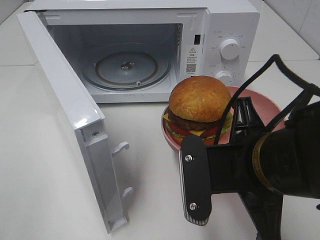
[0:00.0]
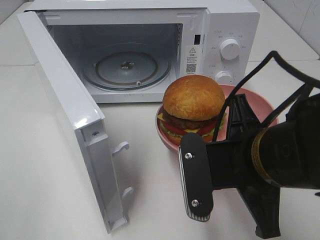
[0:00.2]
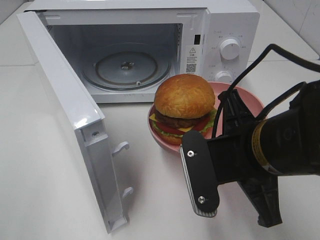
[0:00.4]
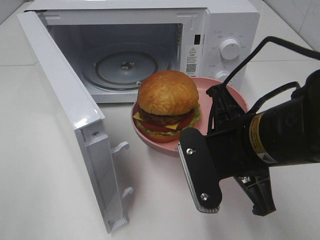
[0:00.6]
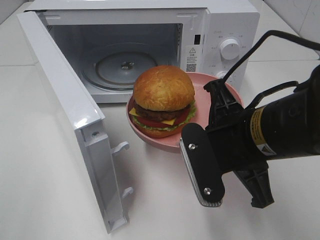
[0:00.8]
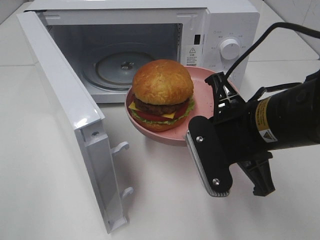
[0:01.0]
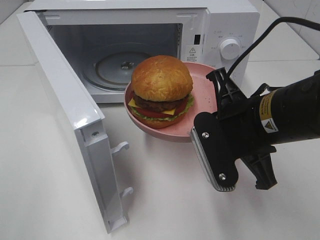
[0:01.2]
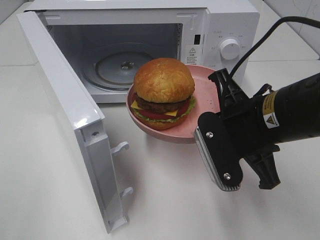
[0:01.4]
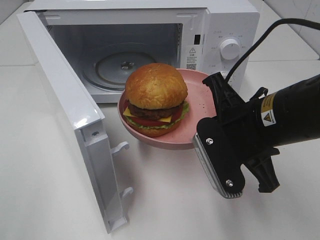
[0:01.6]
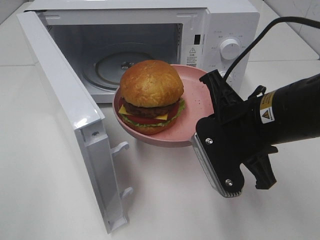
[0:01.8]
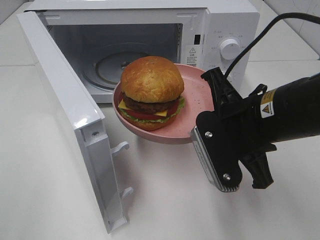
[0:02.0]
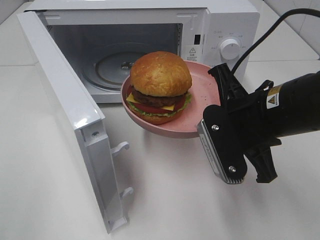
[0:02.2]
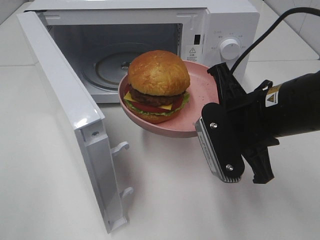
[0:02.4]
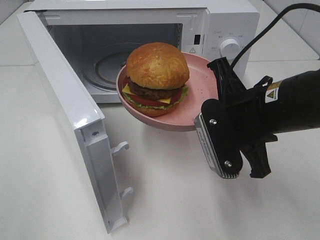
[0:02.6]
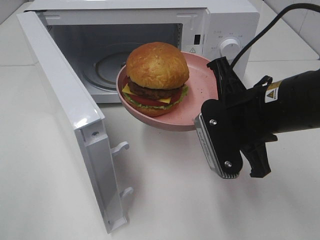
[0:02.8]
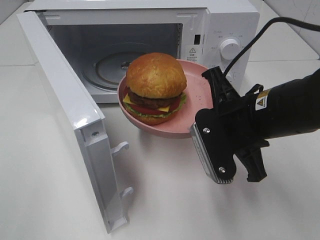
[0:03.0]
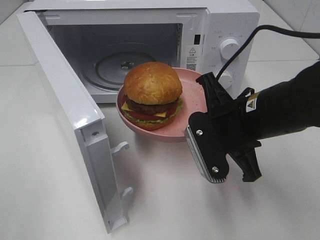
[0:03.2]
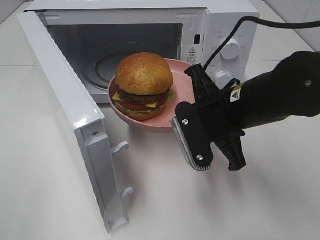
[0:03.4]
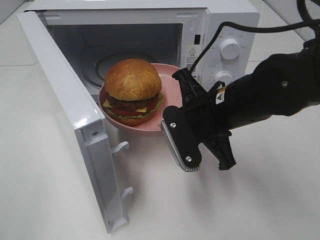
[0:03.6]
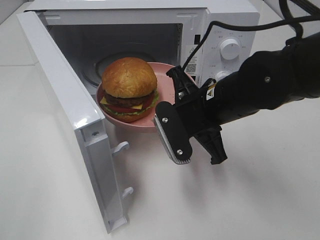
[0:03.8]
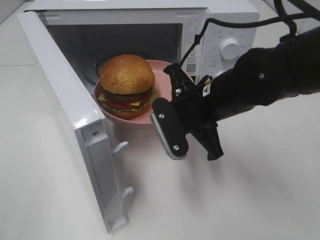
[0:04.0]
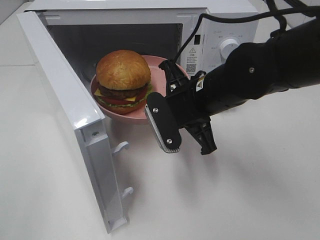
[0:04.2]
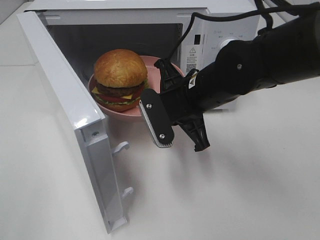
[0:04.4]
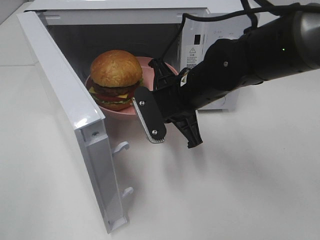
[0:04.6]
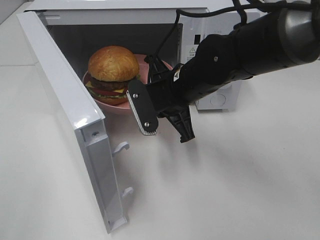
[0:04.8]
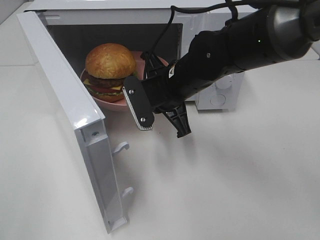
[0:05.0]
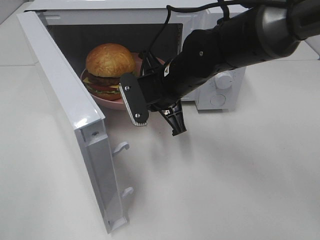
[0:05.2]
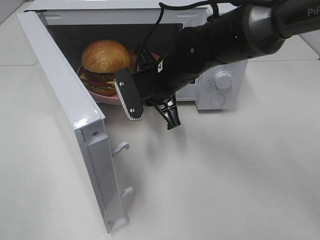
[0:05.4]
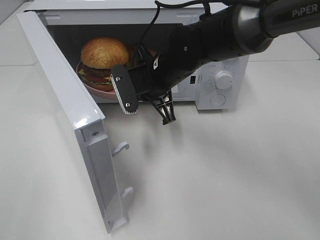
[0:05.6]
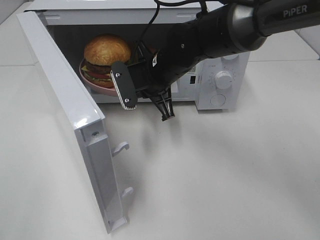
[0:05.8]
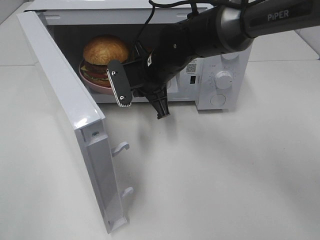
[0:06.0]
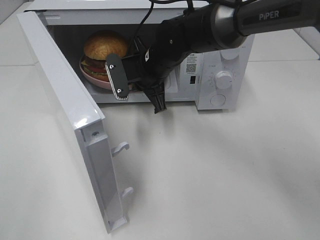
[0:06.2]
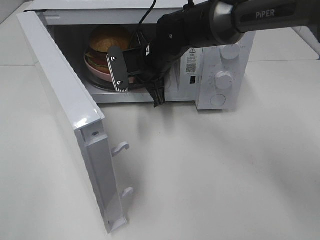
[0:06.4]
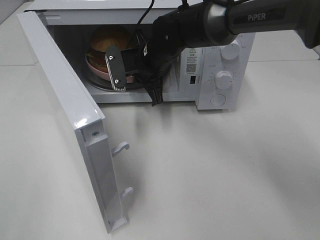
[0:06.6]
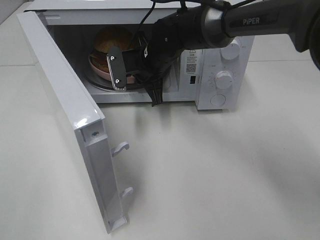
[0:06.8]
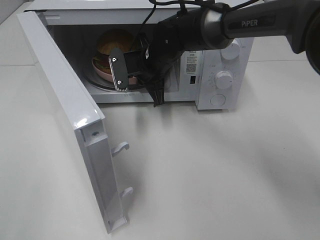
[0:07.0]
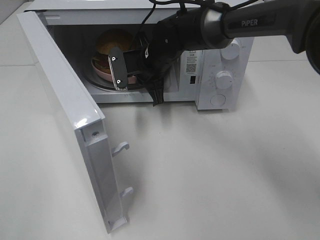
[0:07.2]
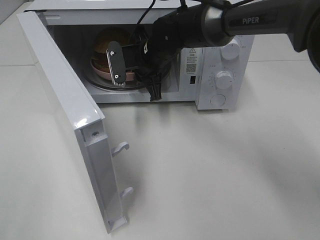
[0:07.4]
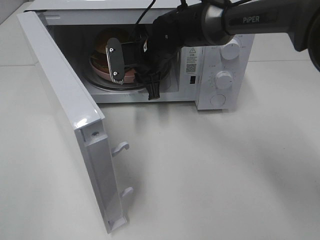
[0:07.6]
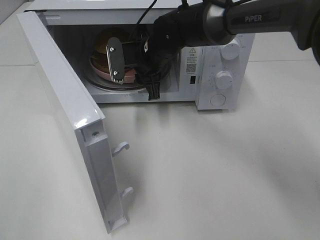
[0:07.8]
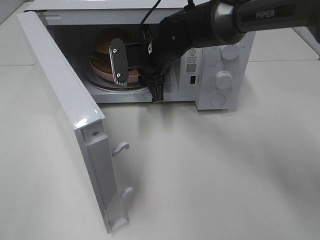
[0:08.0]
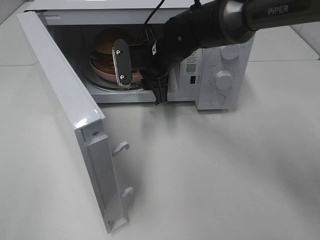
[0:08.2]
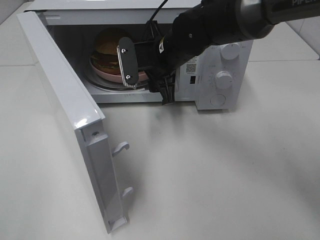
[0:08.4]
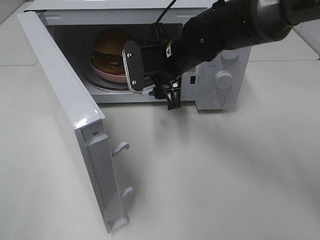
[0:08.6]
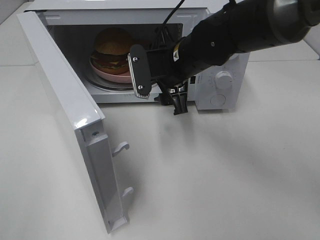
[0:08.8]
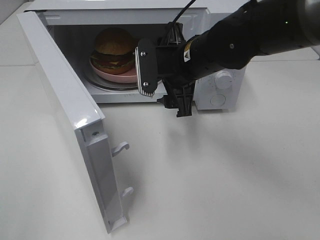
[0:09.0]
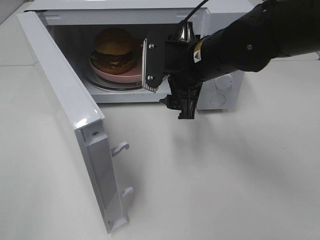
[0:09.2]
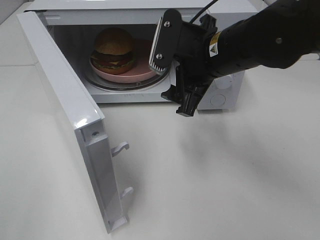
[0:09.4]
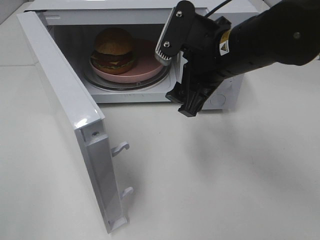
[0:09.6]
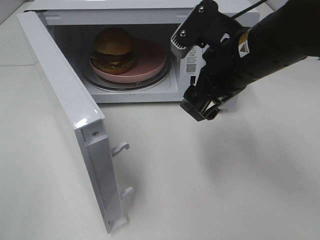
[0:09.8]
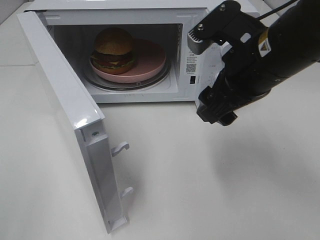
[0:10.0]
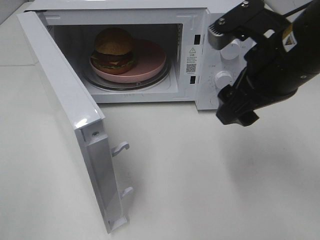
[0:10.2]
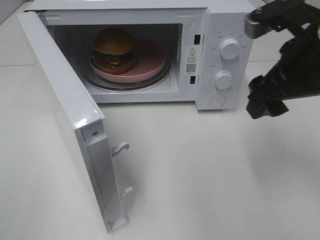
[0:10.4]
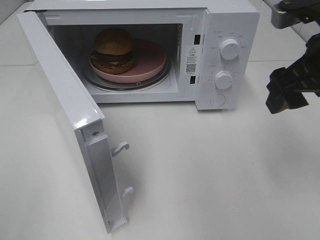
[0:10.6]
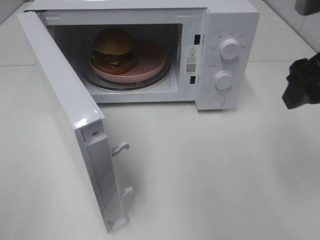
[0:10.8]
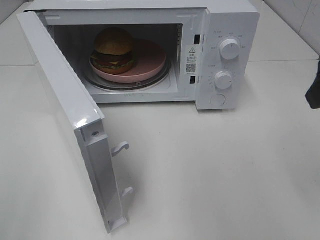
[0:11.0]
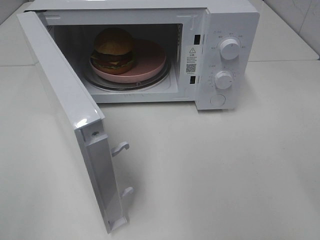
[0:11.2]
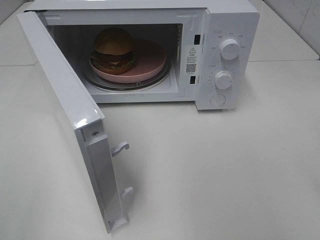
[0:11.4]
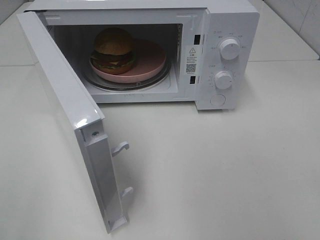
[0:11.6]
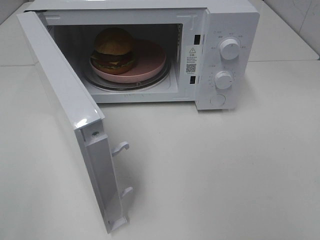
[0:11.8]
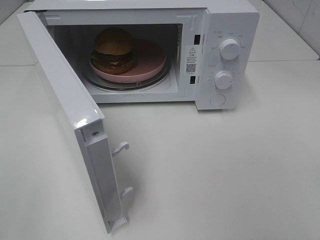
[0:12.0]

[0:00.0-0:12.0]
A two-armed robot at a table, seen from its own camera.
Task of the whole recording: Heat the burger.
Step, 0:00.0 to 0:07.4: Right hand: place the plate in the microwave.
0:00.0 to 0:01.6: The right gripper is displaced forward by some 5 cm.
0:01.6 to 0:03.0: The grippers move only a little.
0:03.0 to 0:04.4: The right gripper travels forward and to the left by some 10 cm.
0:04.4 to 0:06.0: The right gripper travels forward and to the left by some 10 cm.
0:06.0 to 0:07.6: The right gripper opens its fingers.
0:07.6 to 0:09.0: The right gripper goes about 10 cm backward and to the right, and opens.
0:09.0 to 0:10.4: The right gripper moves to the right, backward and upward, some 20 cm.
0:10.4 to 0:12.0: The right gripper shifts roughly 25 cm backward and to the right.

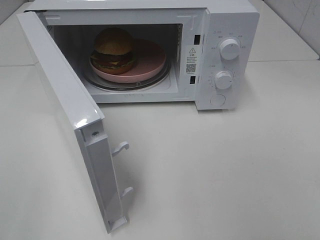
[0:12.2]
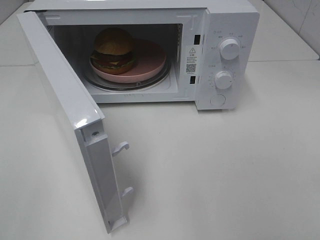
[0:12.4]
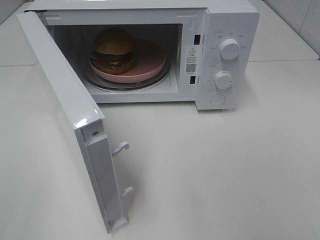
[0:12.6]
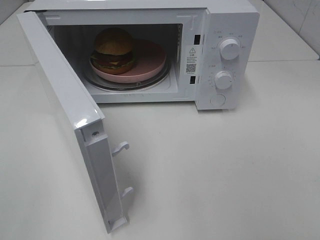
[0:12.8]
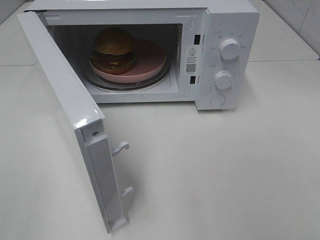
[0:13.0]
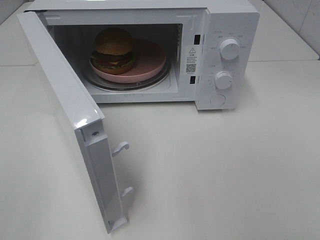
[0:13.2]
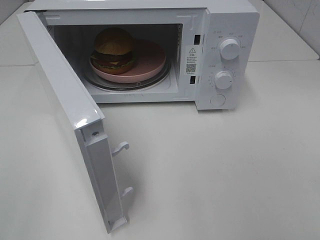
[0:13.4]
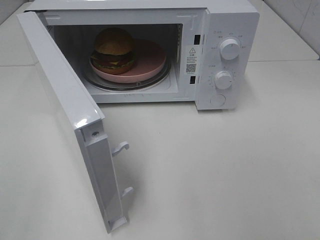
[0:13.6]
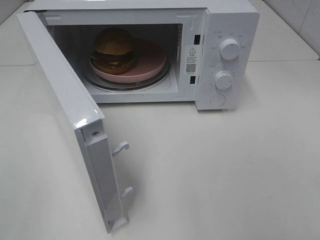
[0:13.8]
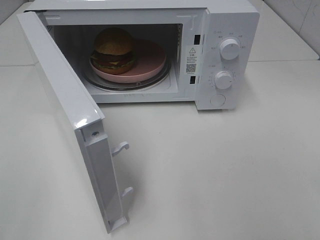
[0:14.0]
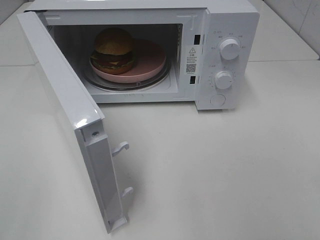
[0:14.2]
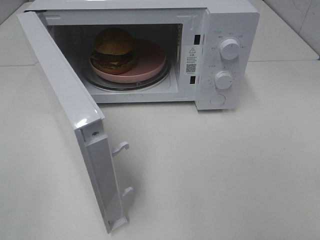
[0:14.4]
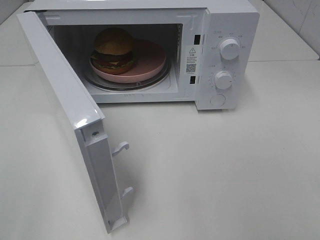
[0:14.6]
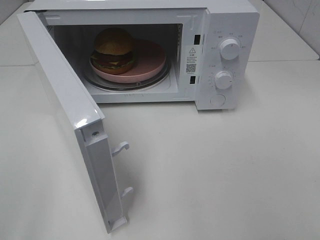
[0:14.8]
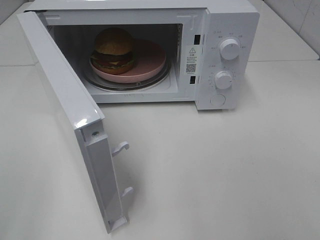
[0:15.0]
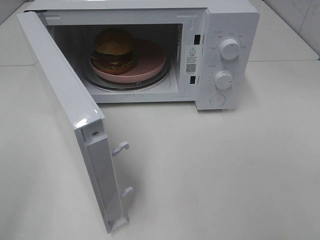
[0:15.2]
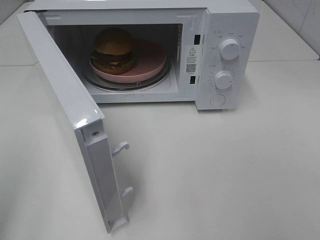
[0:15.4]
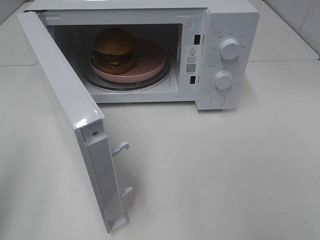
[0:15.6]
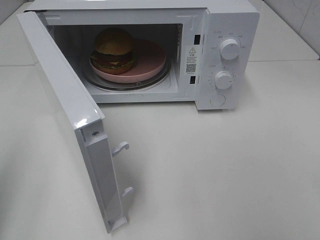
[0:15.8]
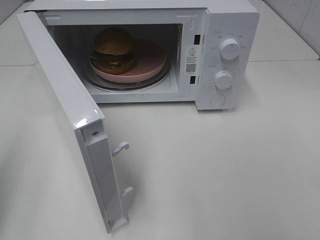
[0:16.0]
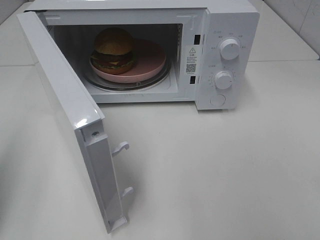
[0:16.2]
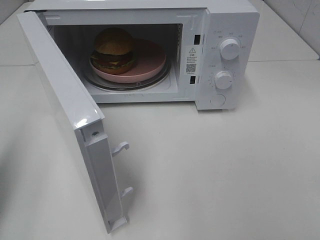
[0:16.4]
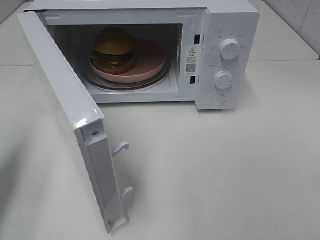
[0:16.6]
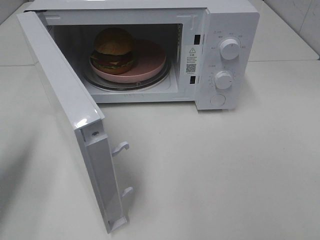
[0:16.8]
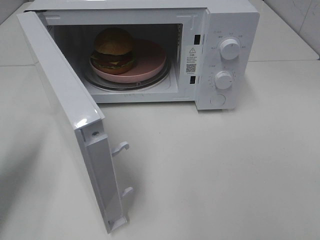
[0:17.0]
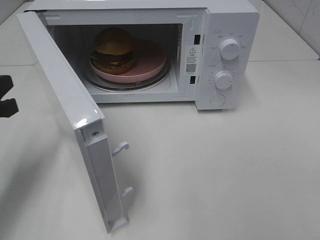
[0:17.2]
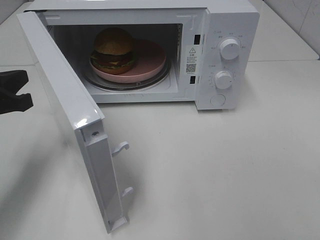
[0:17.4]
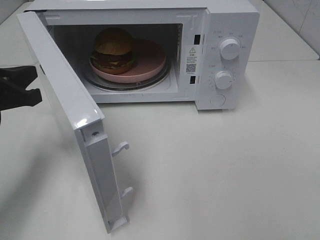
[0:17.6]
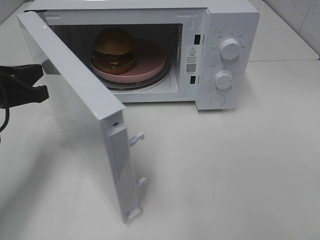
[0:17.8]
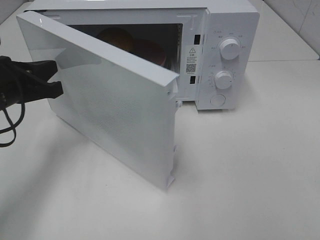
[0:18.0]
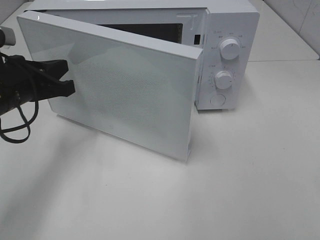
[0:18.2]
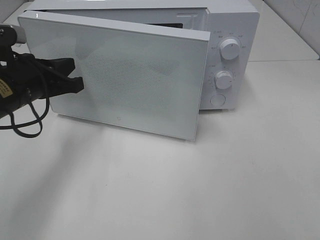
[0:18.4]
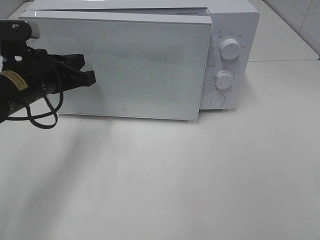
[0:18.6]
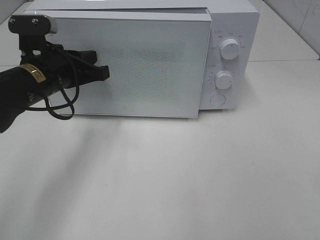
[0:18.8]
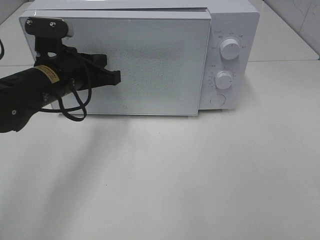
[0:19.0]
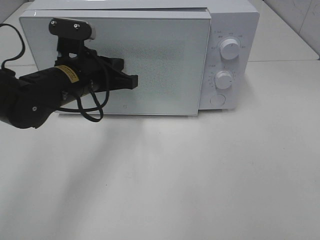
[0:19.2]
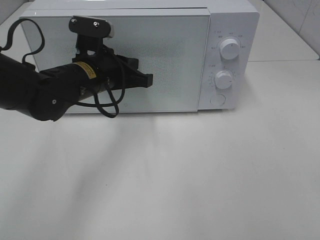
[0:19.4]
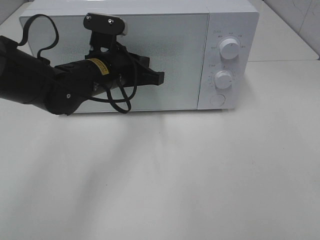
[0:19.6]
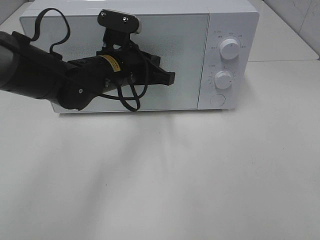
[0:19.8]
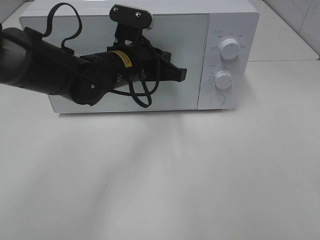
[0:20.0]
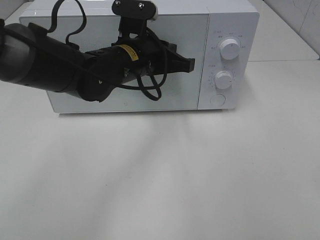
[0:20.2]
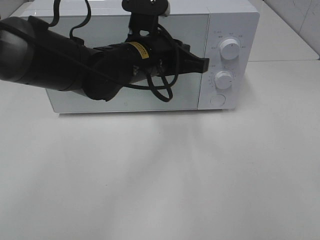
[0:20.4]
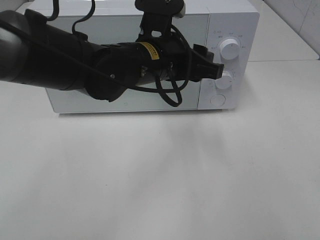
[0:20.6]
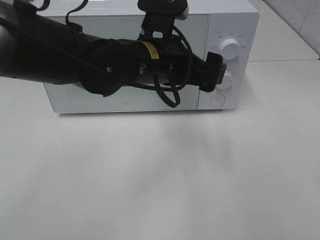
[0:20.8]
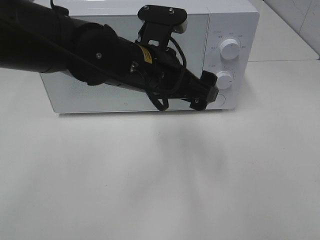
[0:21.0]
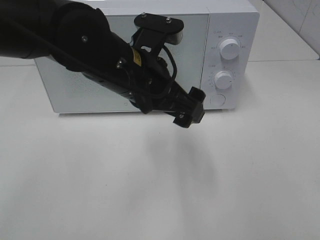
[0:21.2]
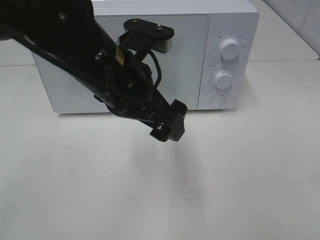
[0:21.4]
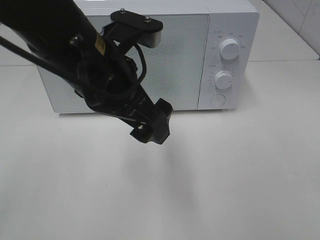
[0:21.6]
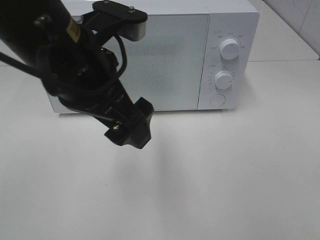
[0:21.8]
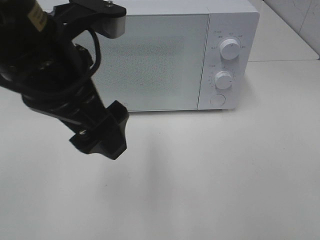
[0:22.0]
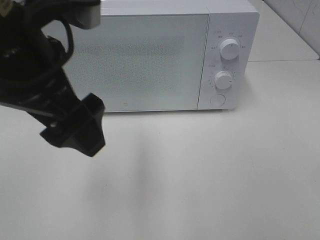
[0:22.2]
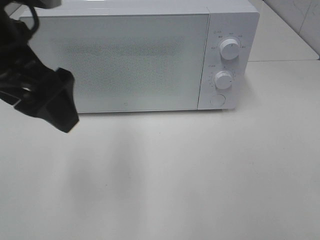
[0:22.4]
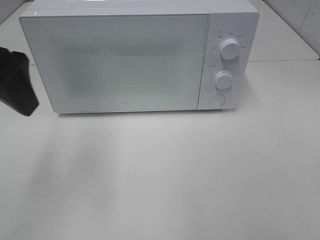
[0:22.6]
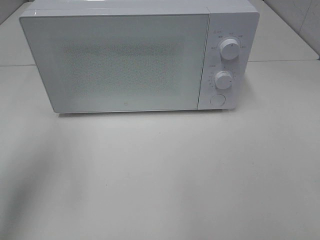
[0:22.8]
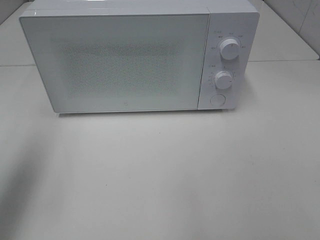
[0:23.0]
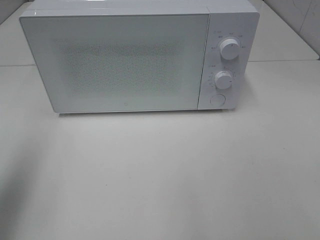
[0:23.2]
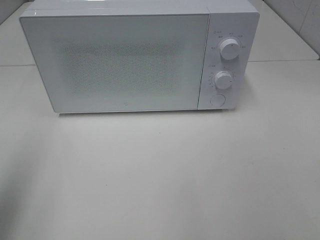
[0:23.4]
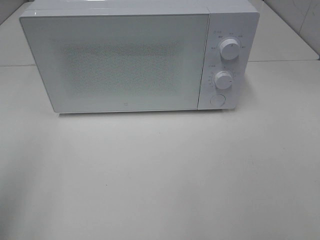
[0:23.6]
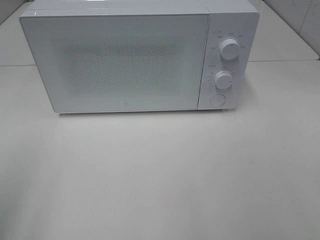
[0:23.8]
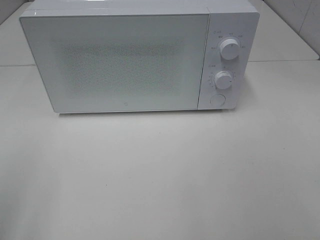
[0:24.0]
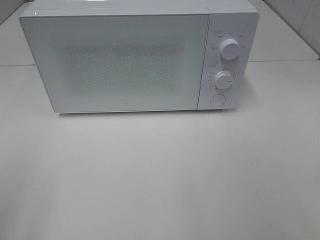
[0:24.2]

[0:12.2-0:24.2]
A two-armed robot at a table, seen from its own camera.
Task of the whole recording: Heat the burger.
Step, 0:12.2 to 0:19.8: Left hand: close the microwave door.
0:15.2 to 0:16.6: The left gripper is displaced forward and downward by approximately 15 cm, and closes up.
0:16.6 to 0:18.2: The left gripper goes approximately 15 cm to the right, forward and downward.
0:18.2 to 0:19.8: The left gripper heads to the right and forward, covering some 15 cm.
0:19.8 to 0:21.2: The left gripper shifts approximately 10 cm backward and upward, and opens its fingers.
0:21.2 to 0:22.6: The left gripper moves to the left and upward, roughly 20 cm.
0:22.6 to 0:24.2: The left gripper shifts approximately 20 cm backward and to the left.
